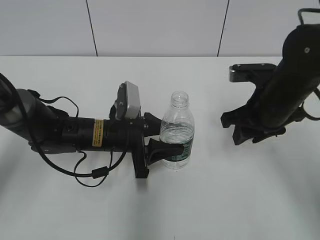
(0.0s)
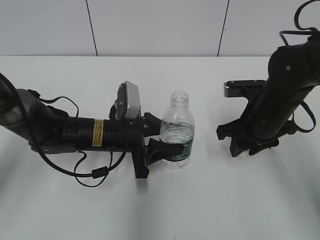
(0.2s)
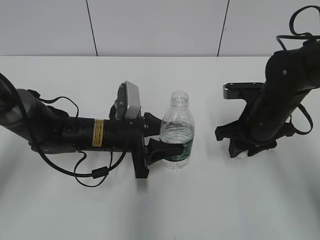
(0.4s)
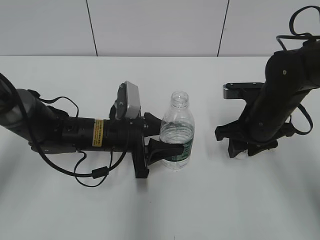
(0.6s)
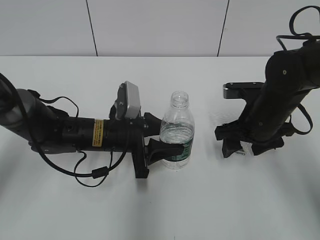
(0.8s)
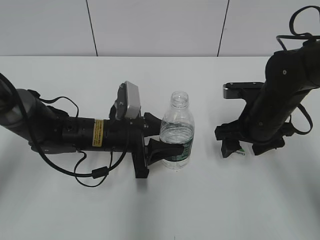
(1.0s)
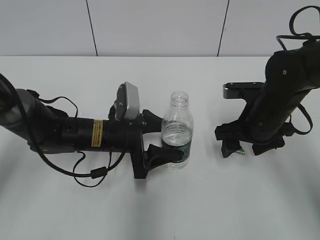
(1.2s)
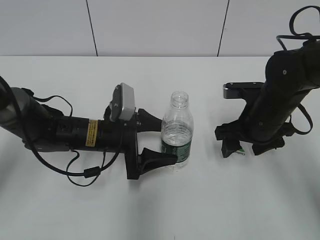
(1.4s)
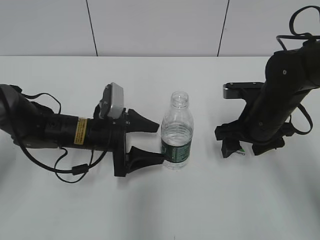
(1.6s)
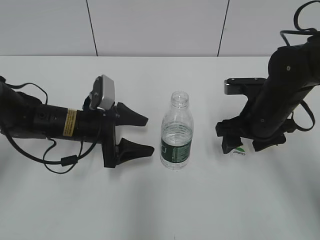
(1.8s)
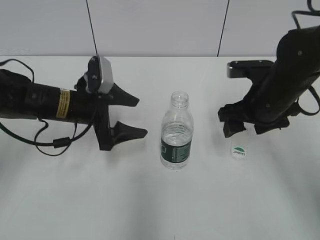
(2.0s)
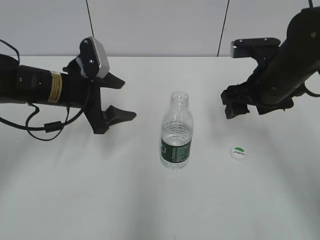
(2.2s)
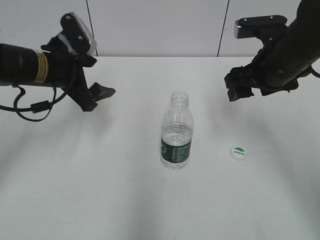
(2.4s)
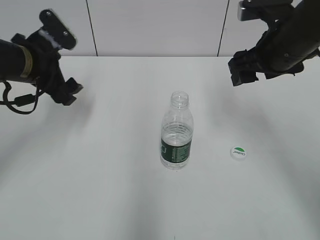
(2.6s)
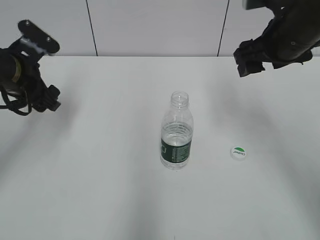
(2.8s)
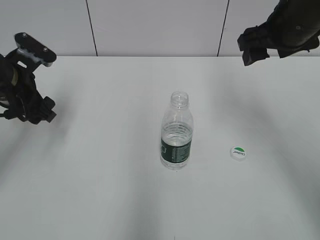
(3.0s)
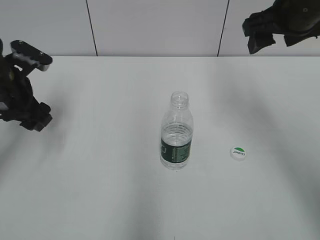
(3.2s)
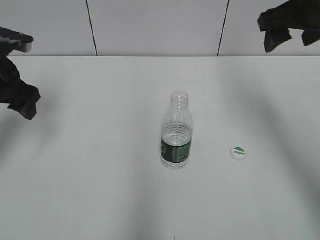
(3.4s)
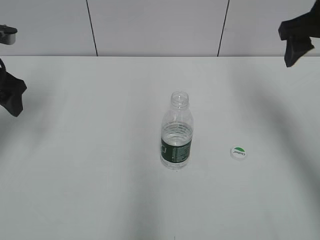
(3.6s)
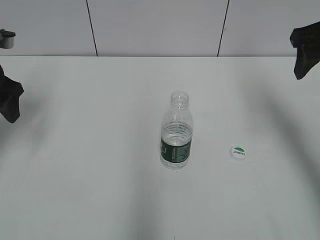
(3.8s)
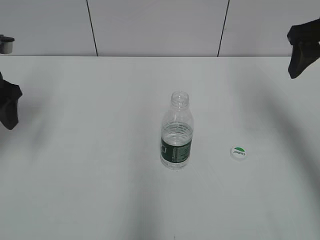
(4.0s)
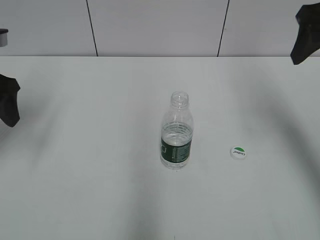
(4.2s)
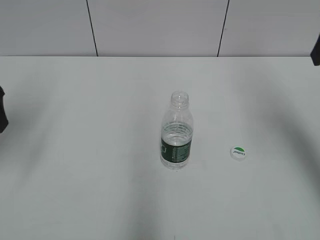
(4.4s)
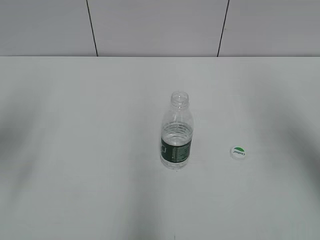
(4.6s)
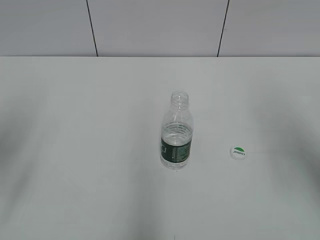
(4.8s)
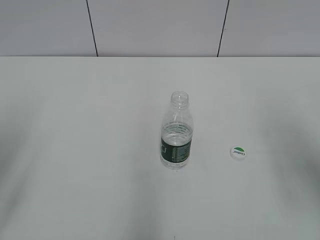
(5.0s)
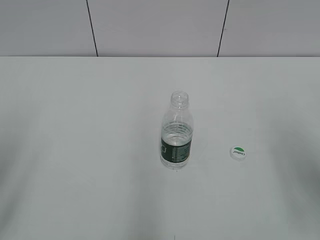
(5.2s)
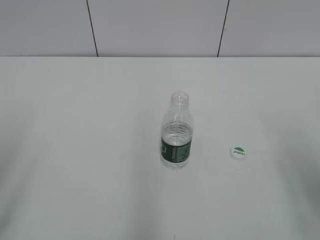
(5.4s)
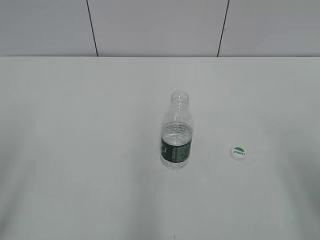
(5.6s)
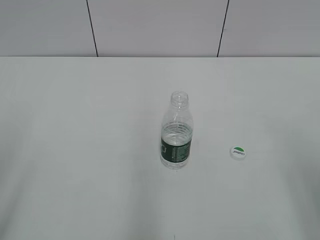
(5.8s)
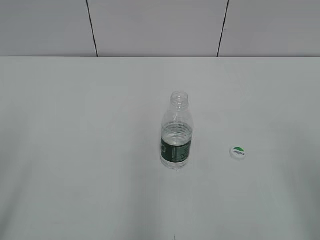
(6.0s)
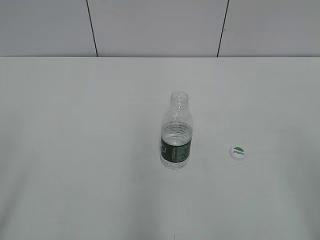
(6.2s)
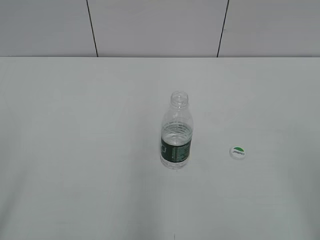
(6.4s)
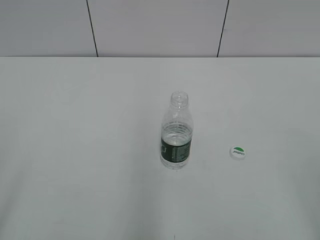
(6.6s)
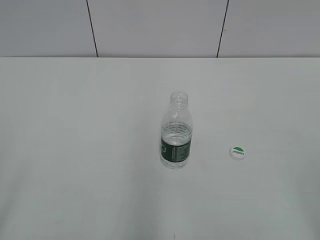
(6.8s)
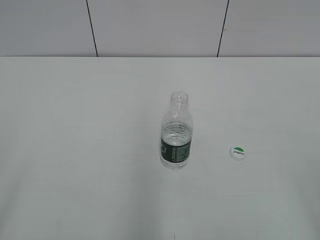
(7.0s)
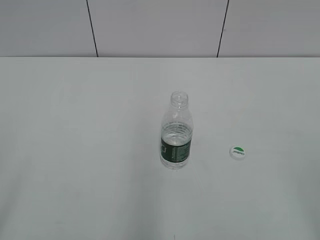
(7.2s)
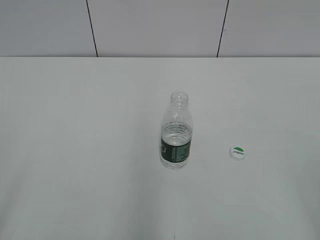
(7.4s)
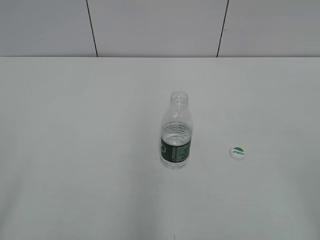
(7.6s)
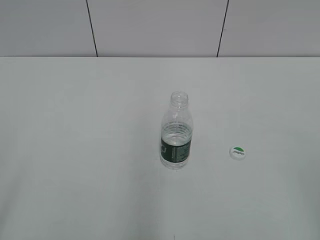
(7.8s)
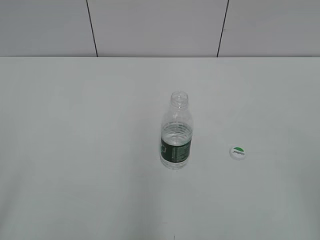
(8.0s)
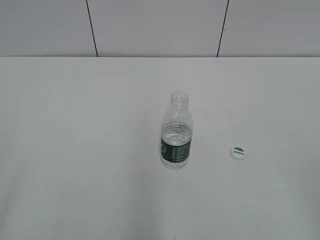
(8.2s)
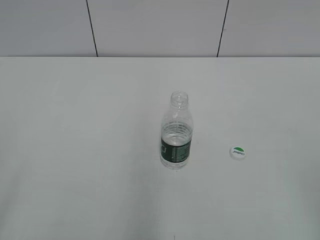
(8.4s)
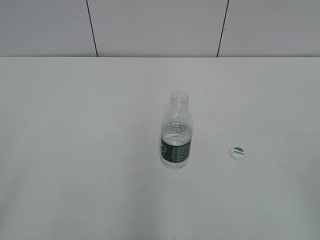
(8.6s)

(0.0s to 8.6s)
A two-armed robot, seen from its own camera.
Step, 1.2s - 1.6s: Place the bottle on the table with the left gripper.
0.0s - 1.4s: The right gripper opens its fingers. The left gripper opens up.
1.4s - 2.8s: The left gripper moves to the left and upward, about 20 cm; the right gripper is displaced upward by roughly 15 cm.
2.8s - 4.4s: The left gripper goes approximately 10 cm backward and upward, while the right gripper is displaced upward, to the right and backward by some 15 cm.
4.4s - 5.8s: The right gripper goes roughly 20 cm backward and downward; the left gripper travels backward by some 20 cm.

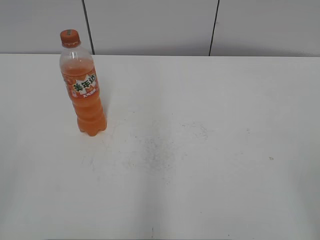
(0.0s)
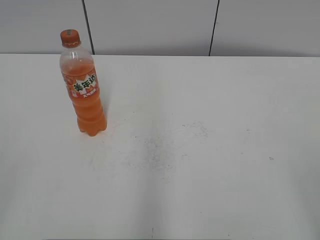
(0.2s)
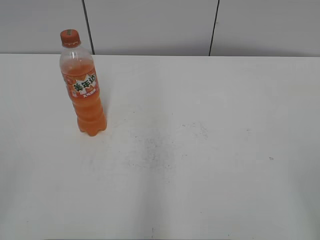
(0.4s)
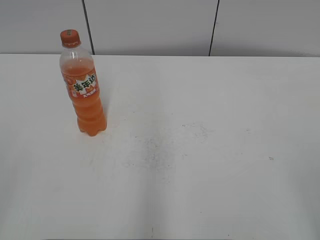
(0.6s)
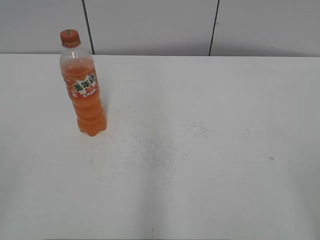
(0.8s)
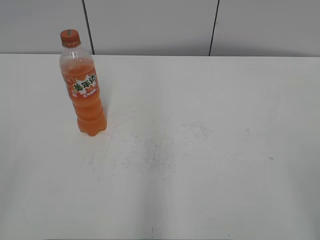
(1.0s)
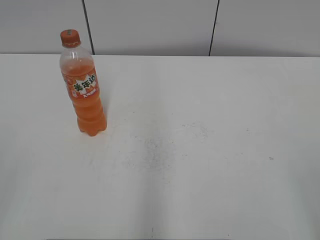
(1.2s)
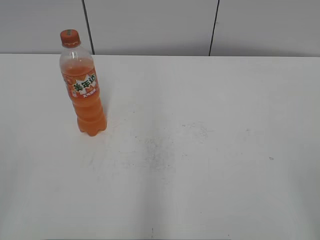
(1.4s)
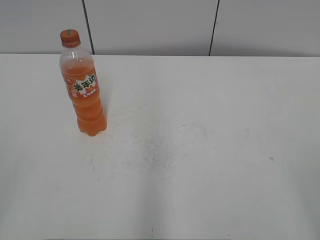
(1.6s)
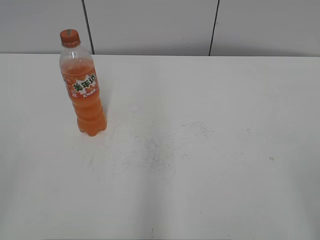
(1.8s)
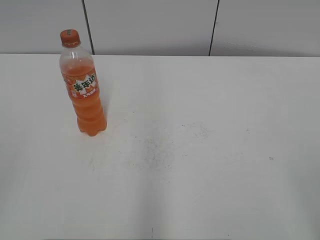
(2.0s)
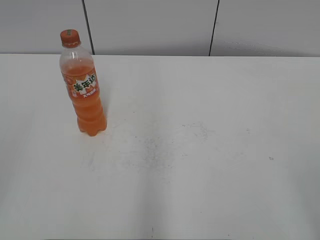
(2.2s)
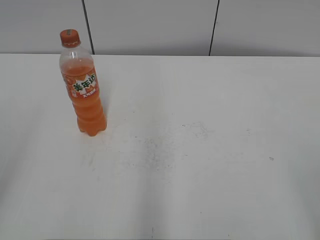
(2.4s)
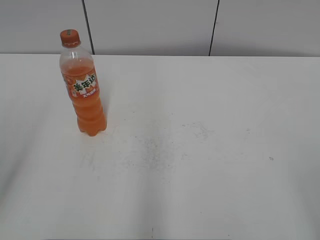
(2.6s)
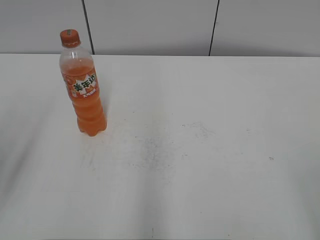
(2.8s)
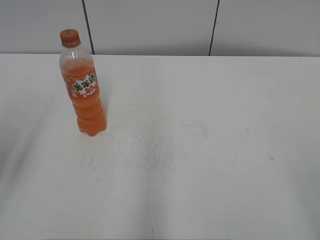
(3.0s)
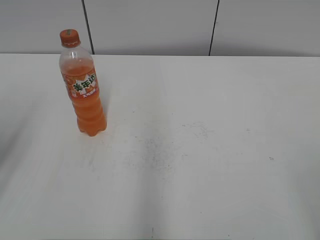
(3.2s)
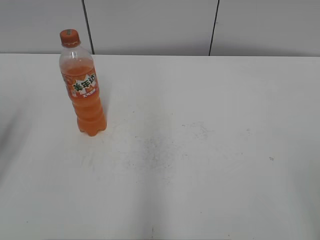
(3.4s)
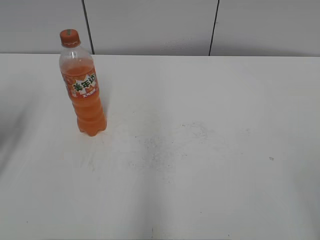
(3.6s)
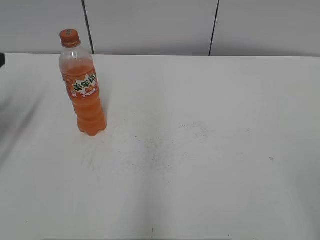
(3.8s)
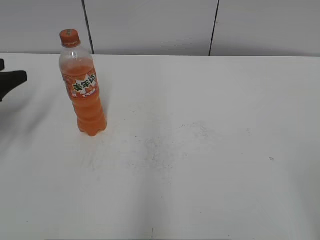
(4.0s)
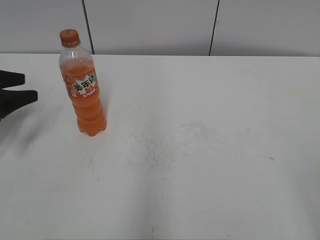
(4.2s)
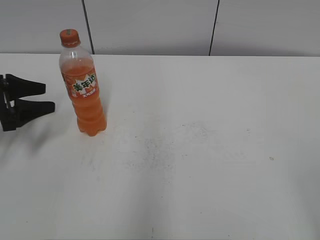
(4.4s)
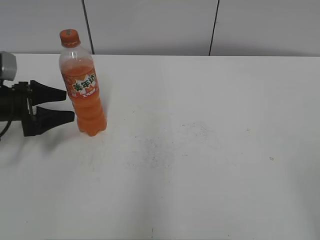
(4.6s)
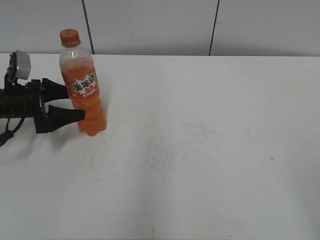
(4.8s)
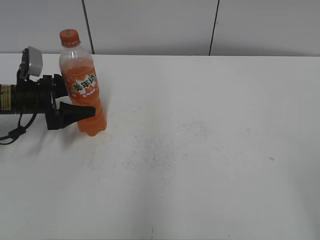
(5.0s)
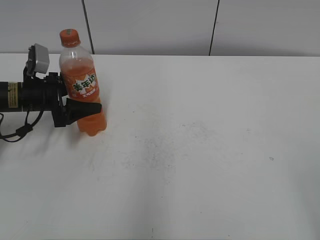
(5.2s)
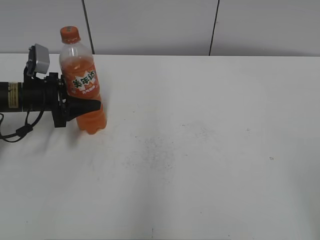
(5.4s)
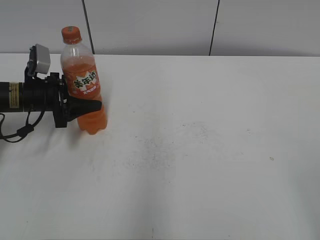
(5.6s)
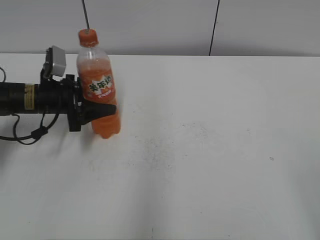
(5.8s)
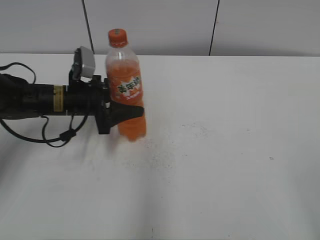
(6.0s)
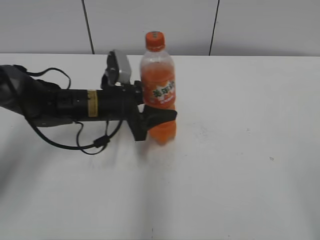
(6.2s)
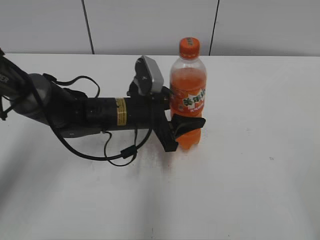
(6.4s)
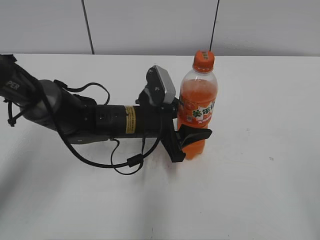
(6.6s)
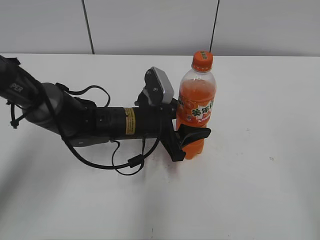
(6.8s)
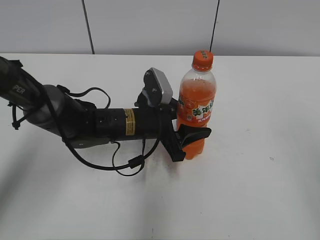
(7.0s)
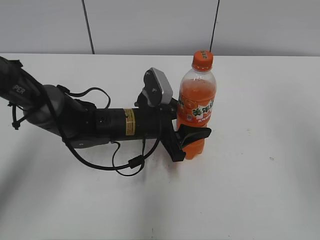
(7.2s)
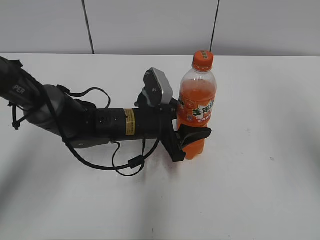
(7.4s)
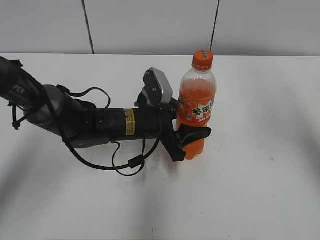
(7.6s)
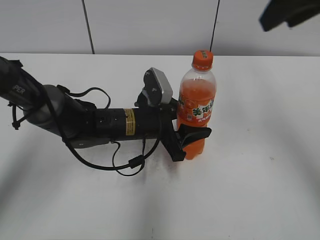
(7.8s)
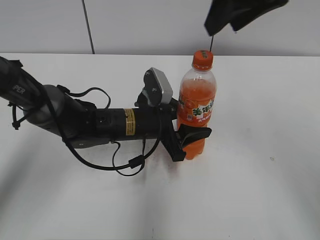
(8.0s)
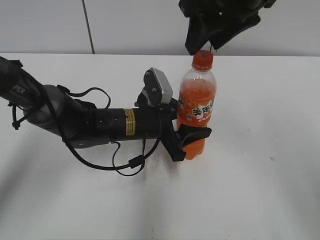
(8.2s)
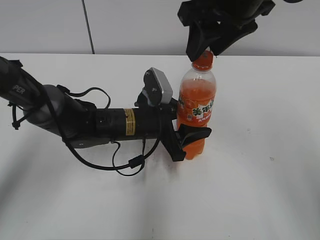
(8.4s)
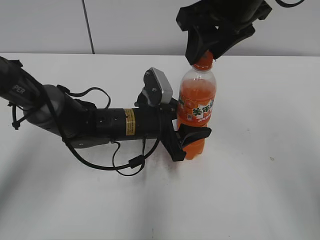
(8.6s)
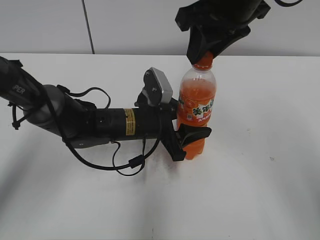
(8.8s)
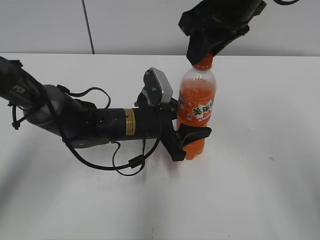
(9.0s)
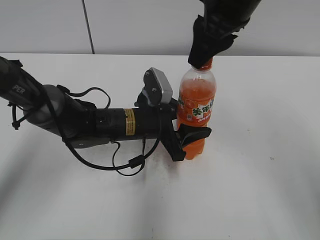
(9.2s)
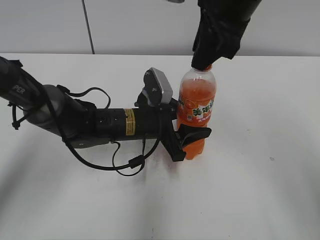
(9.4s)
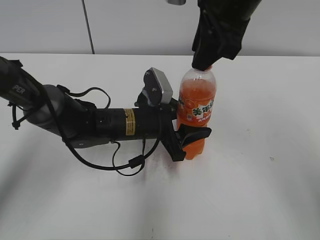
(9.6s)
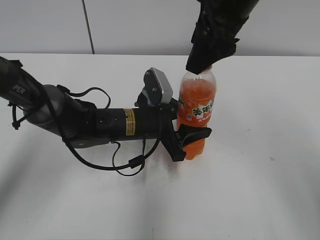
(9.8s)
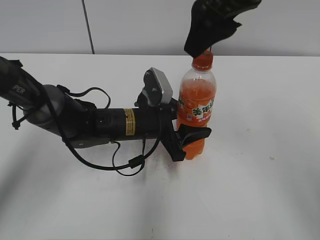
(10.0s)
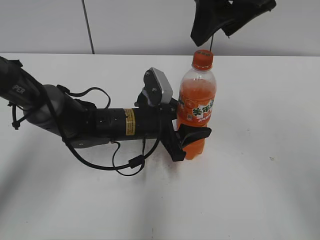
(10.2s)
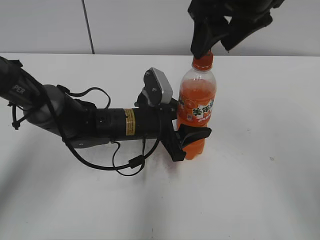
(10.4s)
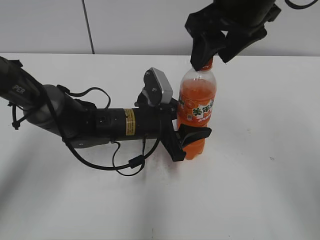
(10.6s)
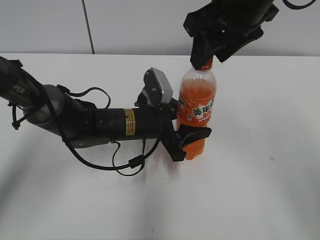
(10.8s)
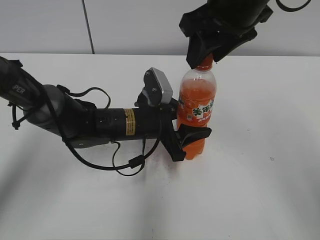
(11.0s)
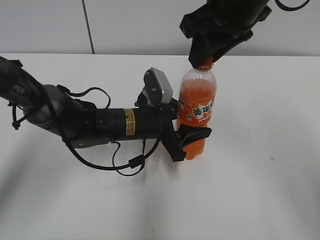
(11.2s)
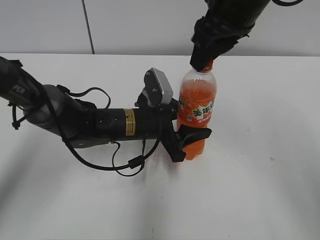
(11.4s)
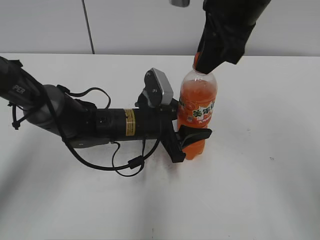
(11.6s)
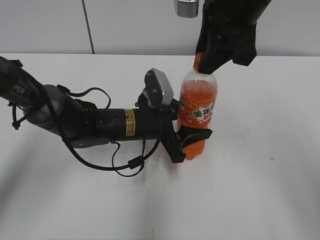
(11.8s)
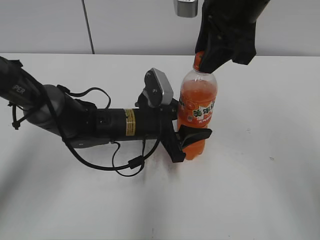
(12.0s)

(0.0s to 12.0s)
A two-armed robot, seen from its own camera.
Step, 0.0s - 5.2s: Grab the Mirinda with the left hand.
Step, 5.4s - 6.6s: Move the Mirinda from left to right.
3.0s - 4.4s: The left gripper is displaced forward and downward by roughly 25 cm.
4.4s - 6.0s: The left gripper heads to the right, covering roughly 15 cm, and closes.
6.0s - 7.6s: The right gripper goes about 30 cm forward and upward, and closes. The left gripper travels to the right by some 10 cm.
7.6s - 9.0s: The right gripper is displaced to the left and forward by approximately 15 cm, and closes.
9.0s - 10.4s: The right gripper opens its fingers.
10.4s - 12.0s: The right gripper closes.

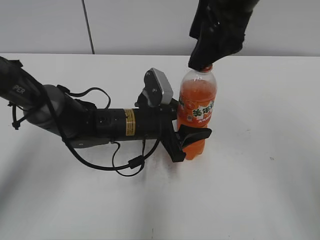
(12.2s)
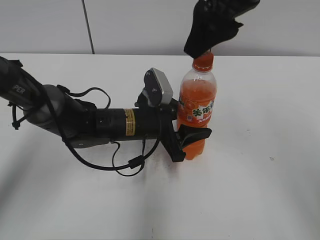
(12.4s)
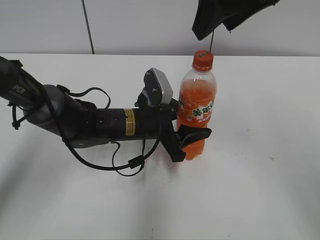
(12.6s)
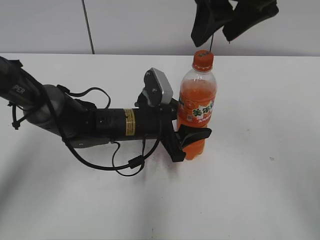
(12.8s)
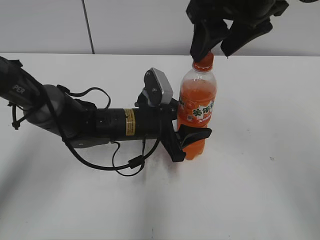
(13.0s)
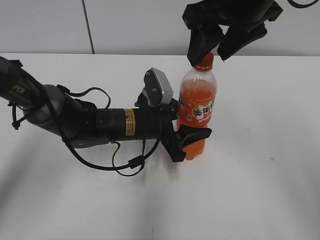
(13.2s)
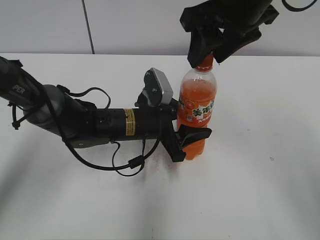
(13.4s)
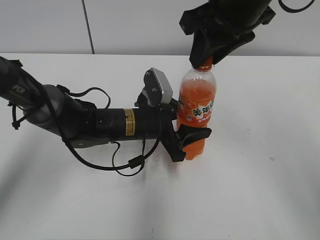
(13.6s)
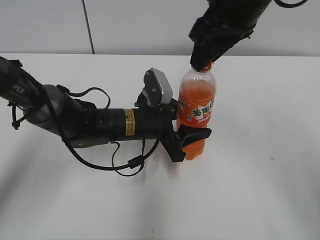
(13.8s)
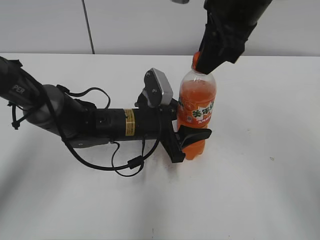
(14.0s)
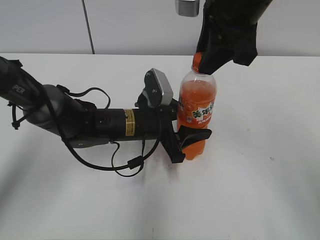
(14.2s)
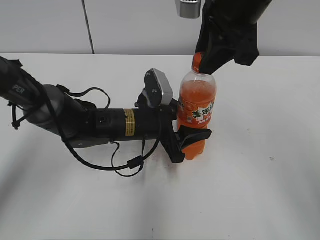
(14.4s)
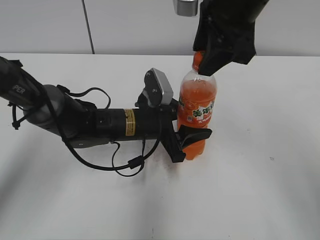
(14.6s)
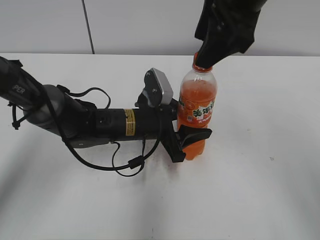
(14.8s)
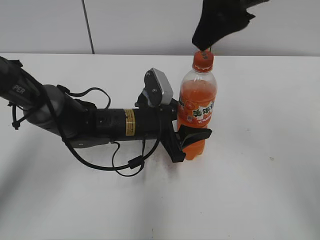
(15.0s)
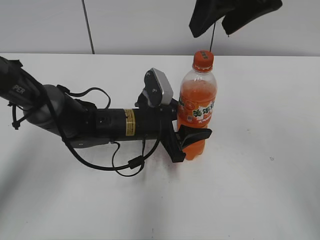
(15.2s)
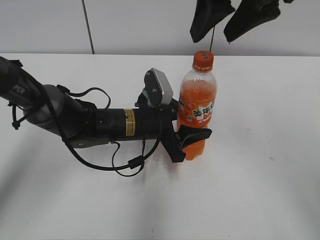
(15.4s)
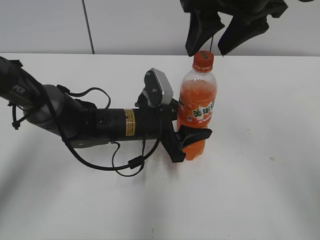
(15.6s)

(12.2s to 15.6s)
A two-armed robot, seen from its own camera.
12.2s - 13.8s: The right gripper closes its fingers.
13.8s - 15.6s: The right gripper opens up.
